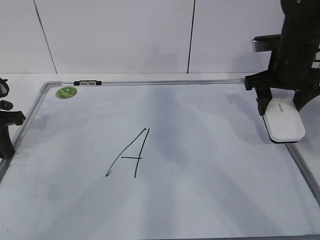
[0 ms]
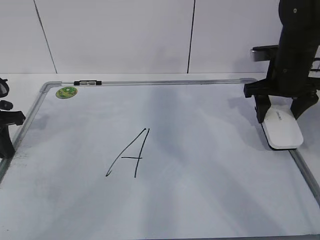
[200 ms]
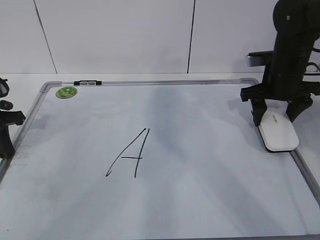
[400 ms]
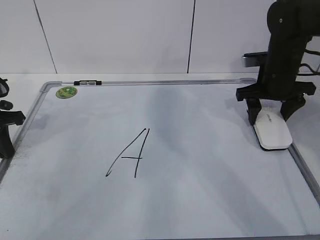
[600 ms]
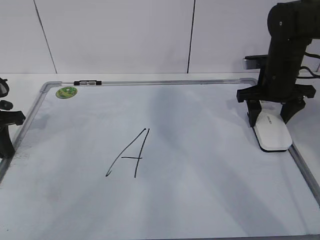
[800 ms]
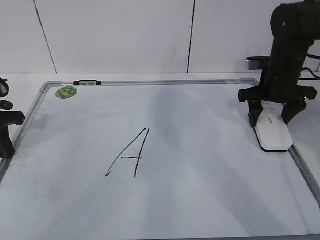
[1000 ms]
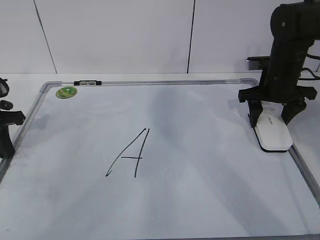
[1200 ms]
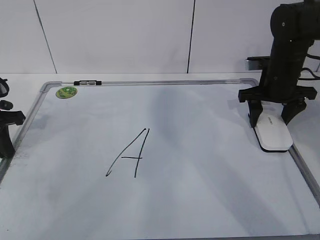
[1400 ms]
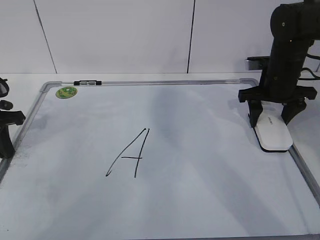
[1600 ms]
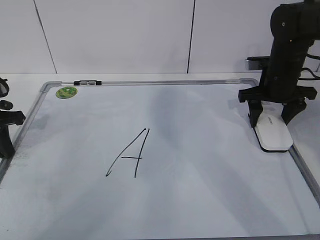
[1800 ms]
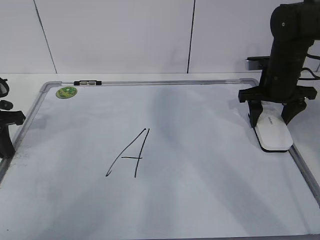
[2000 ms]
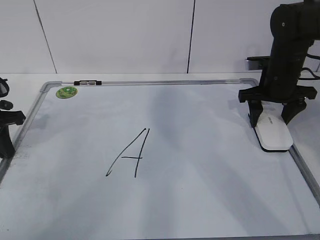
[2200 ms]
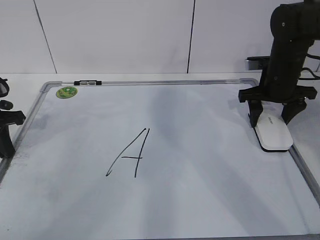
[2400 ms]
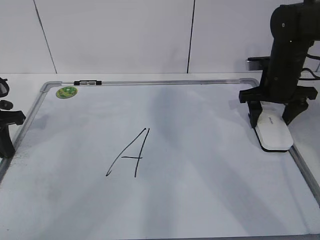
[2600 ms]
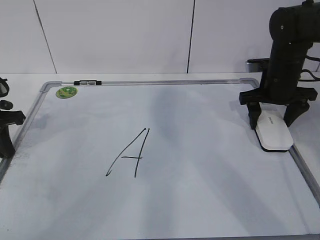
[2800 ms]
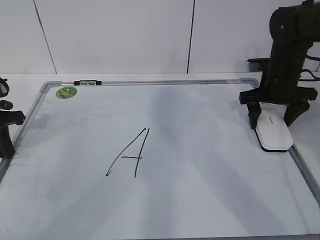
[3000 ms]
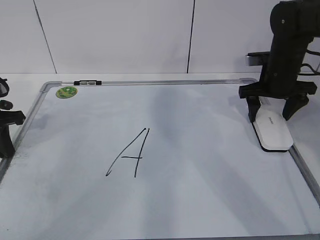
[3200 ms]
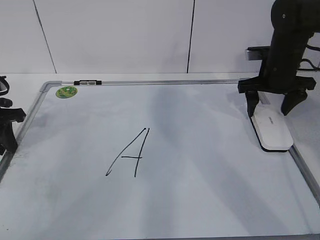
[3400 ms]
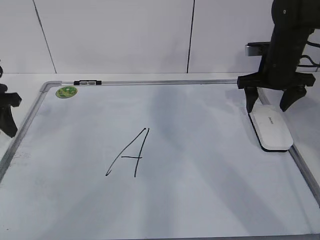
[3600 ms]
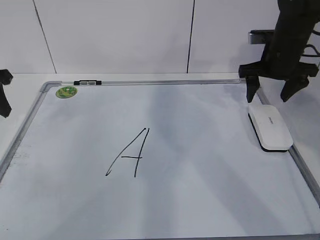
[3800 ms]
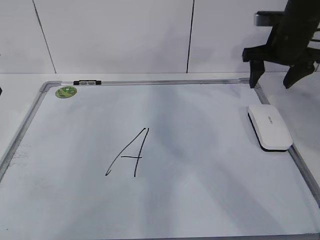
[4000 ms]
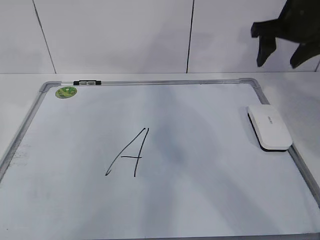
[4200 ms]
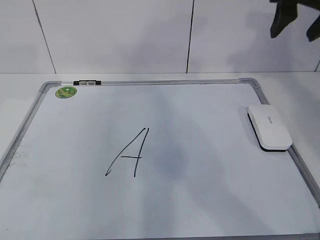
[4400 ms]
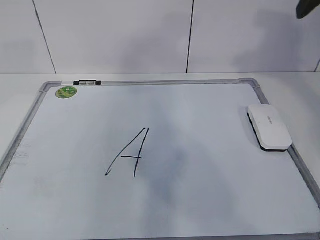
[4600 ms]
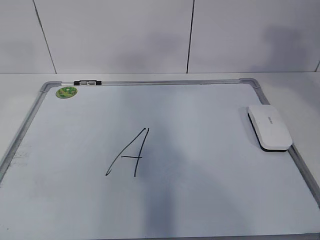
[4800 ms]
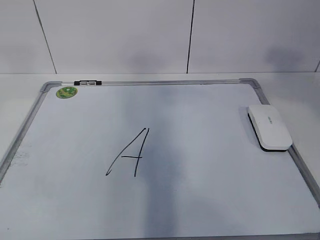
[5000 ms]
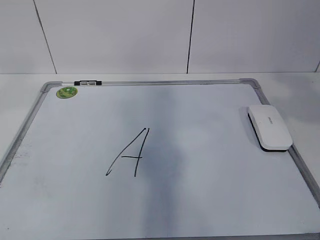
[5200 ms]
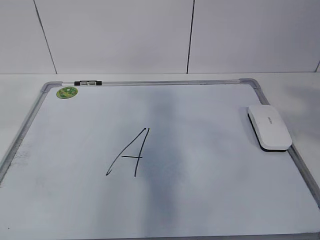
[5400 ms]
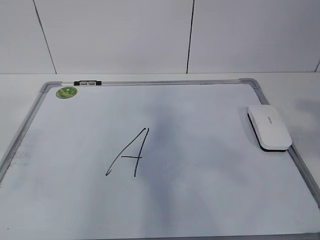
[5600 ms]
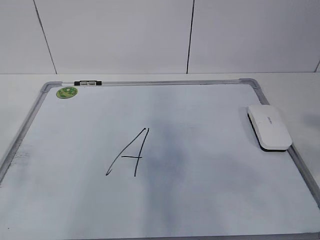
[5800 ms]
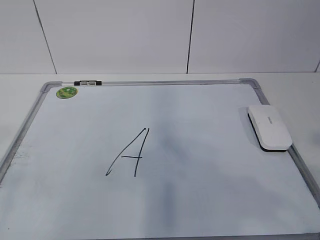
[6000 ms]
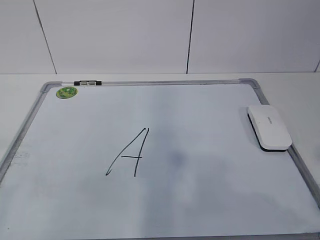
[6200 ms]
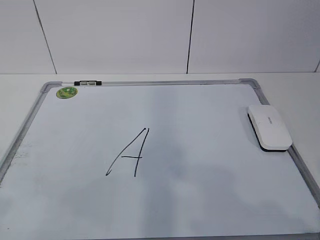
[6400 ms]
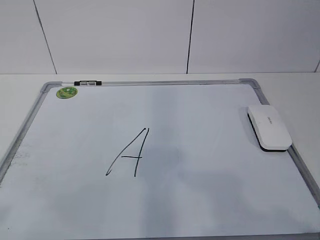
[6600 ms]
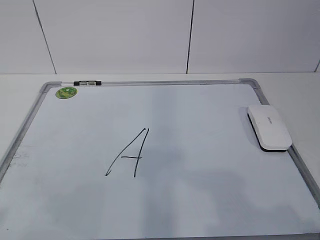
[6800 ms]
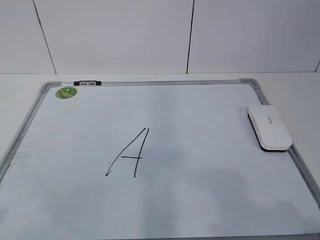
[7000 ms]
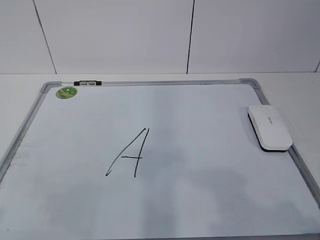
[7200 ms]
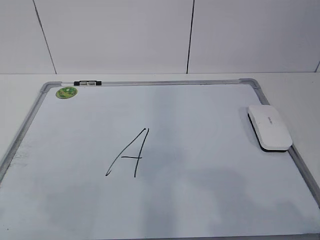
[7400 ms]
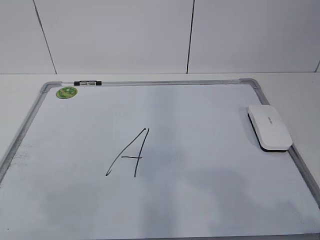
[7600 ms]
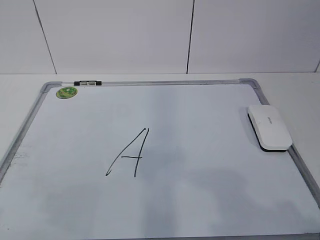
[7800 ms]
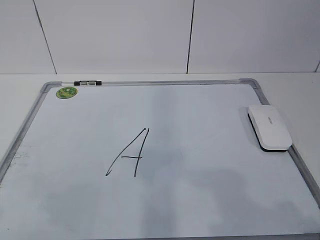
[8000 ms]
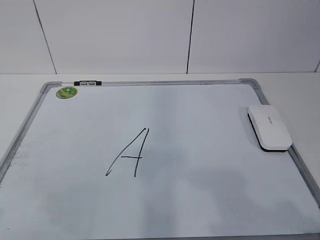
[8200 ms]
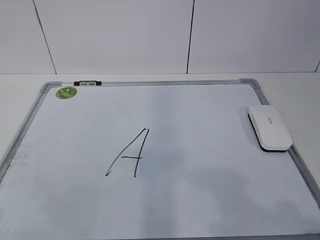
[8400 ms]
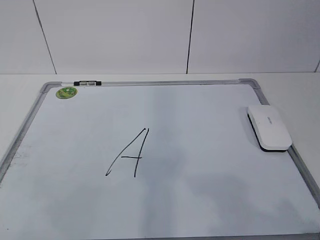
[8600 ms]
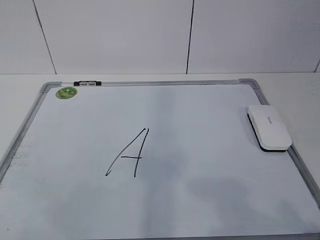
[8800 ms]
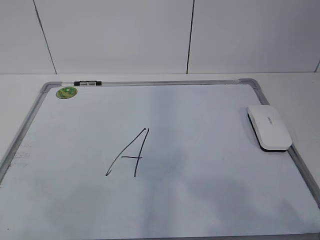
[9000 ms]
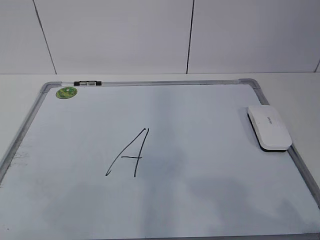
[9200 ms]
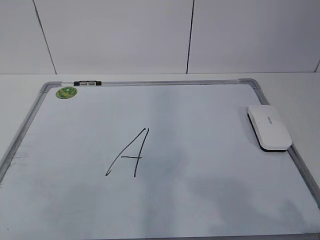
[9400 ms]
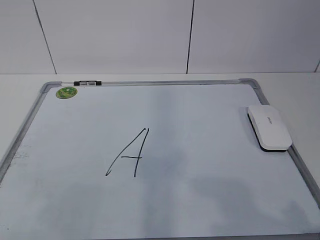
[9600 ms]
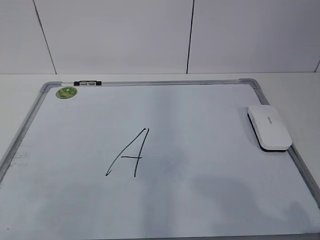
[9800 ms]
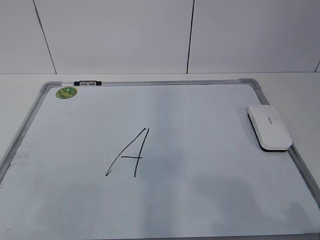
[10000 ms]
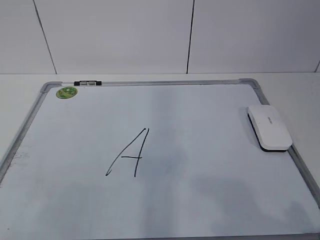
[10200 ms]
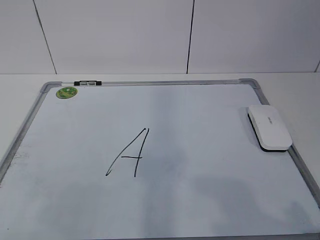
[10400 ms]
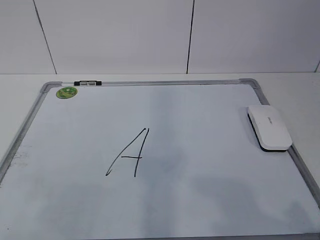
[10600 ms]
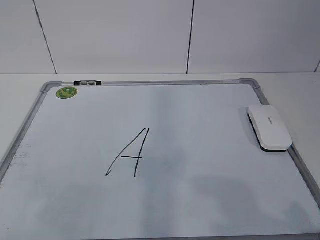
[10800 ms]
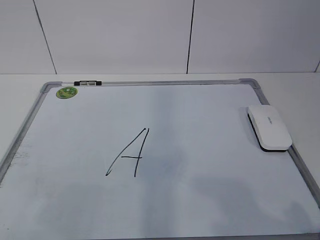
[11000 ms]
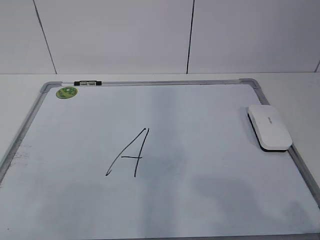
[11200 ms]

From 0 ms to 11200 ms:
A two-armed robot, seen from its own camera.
Task of the whole recording: pick up the eraser on the blackboard and erase the letter "a".
From 0 ms to 1600 ms: The right gripper changes place by some 5 cm.
From 1600 ms to 3200 ms: The right gripper opens.
From 3200 ms to 4800 ms: The grippers both shift upward and backward by about 30 cm. The right gripper closes up. Meanwhile the left gripper opens up.
From 4800 ms to 6400 ms: The grippers both shift backward and downward by approximately 25 cm.
From 9600 ms to 11200 ms: Both grippers stay about where they are.

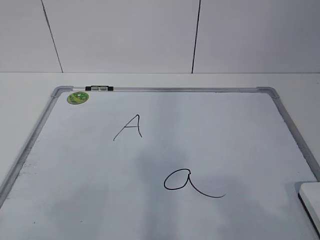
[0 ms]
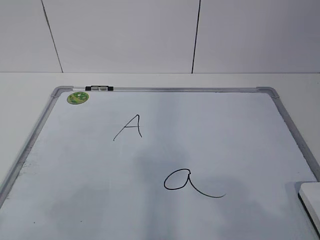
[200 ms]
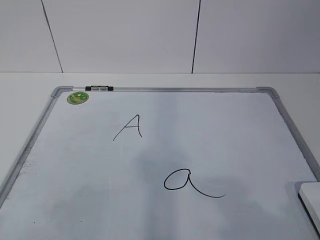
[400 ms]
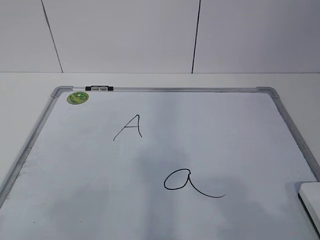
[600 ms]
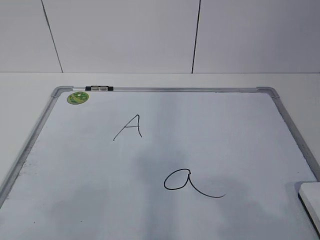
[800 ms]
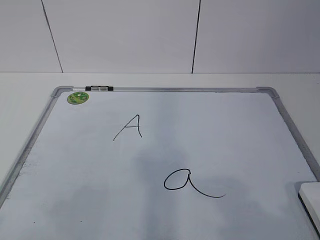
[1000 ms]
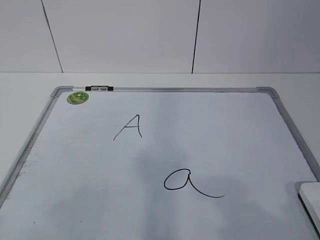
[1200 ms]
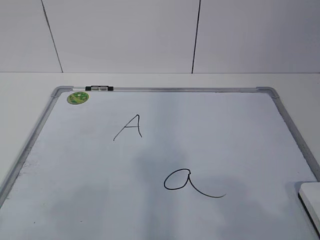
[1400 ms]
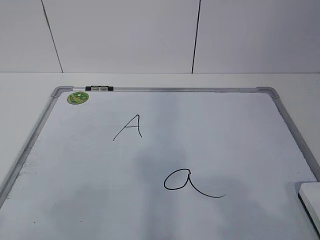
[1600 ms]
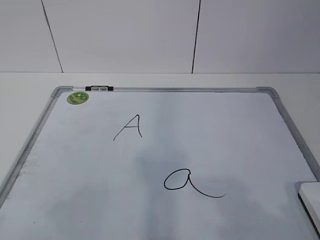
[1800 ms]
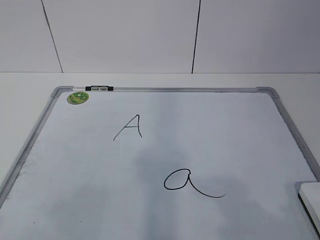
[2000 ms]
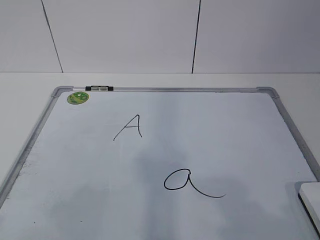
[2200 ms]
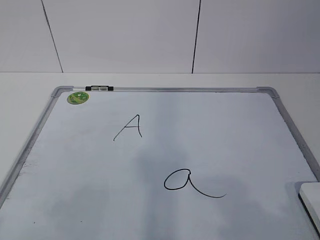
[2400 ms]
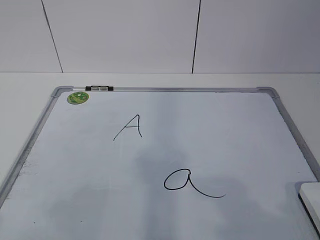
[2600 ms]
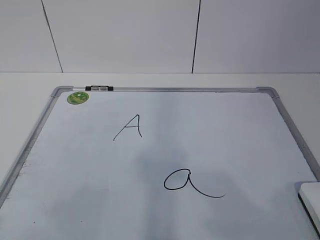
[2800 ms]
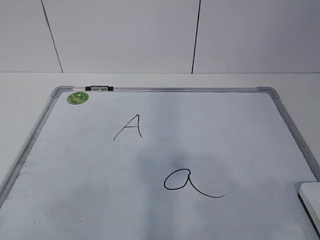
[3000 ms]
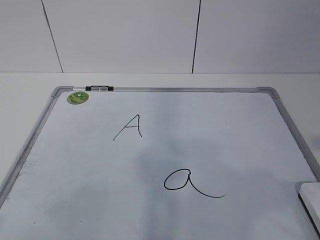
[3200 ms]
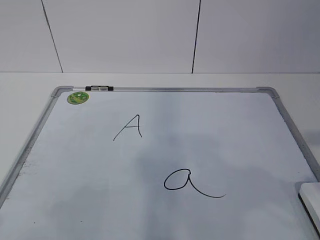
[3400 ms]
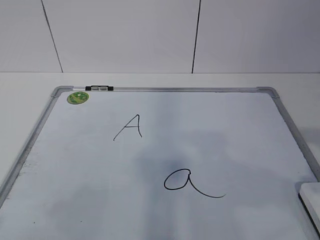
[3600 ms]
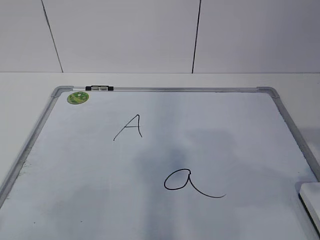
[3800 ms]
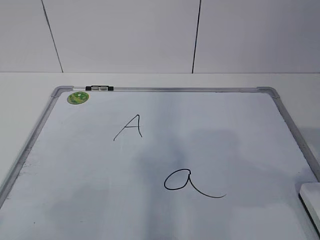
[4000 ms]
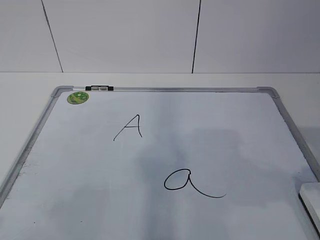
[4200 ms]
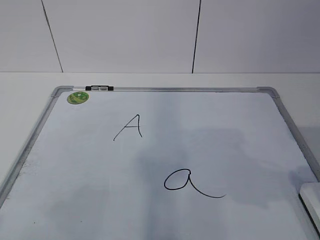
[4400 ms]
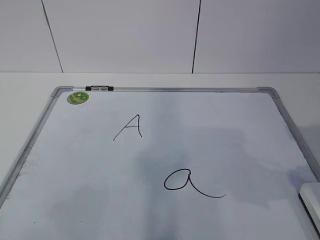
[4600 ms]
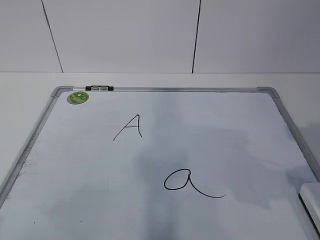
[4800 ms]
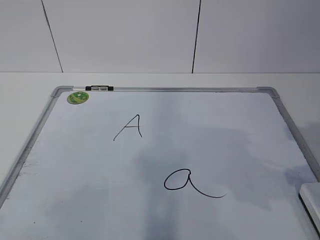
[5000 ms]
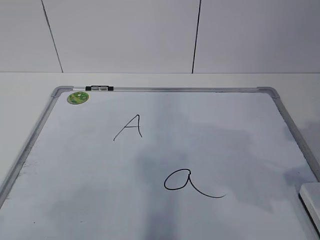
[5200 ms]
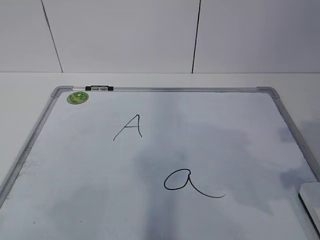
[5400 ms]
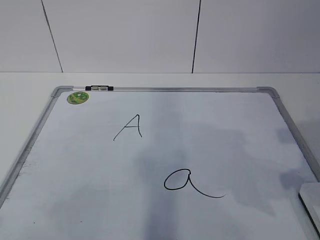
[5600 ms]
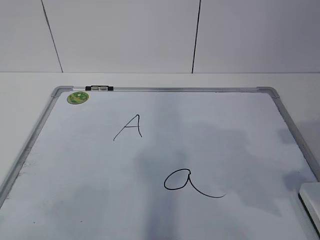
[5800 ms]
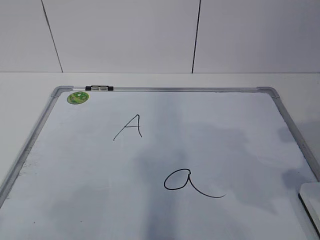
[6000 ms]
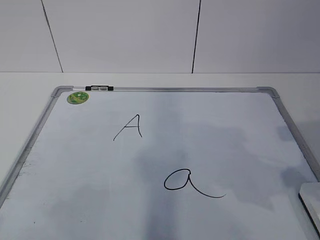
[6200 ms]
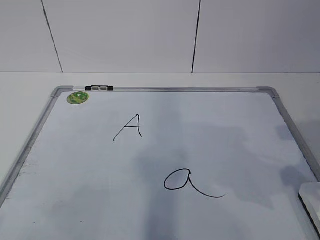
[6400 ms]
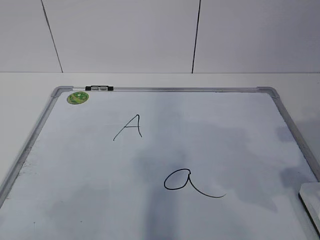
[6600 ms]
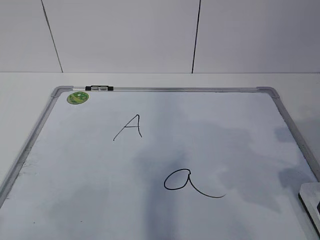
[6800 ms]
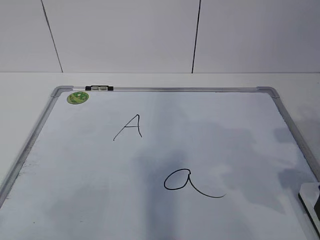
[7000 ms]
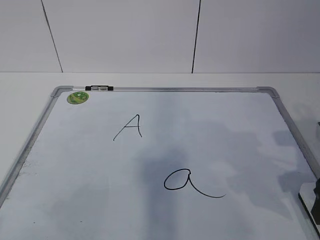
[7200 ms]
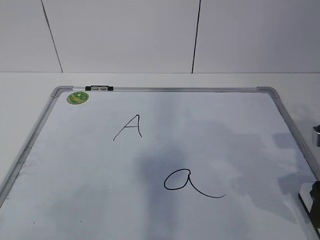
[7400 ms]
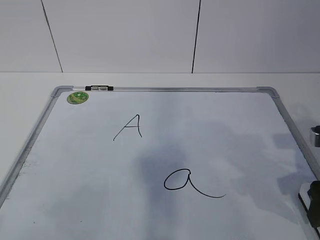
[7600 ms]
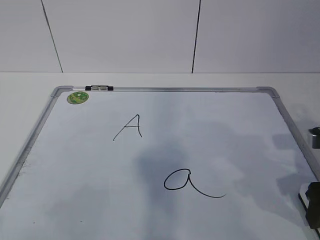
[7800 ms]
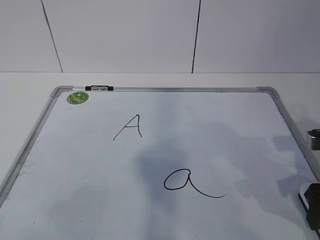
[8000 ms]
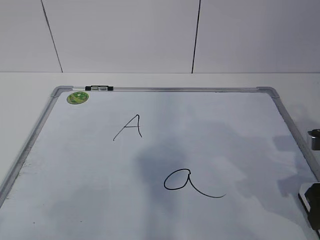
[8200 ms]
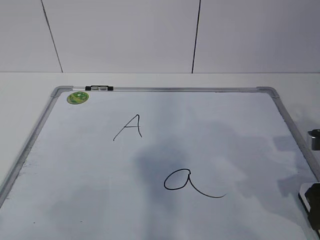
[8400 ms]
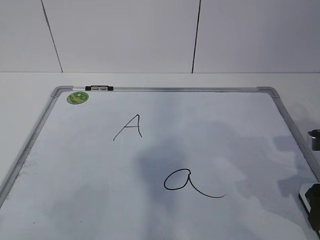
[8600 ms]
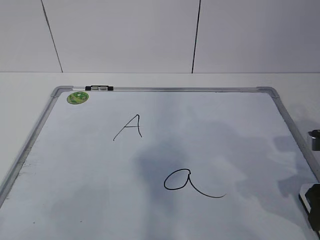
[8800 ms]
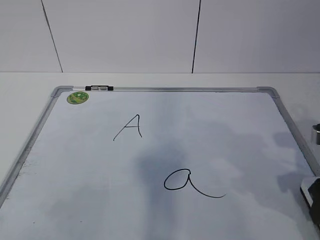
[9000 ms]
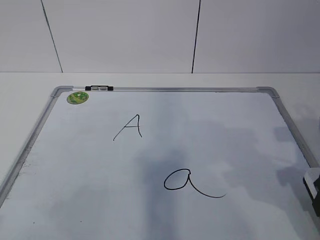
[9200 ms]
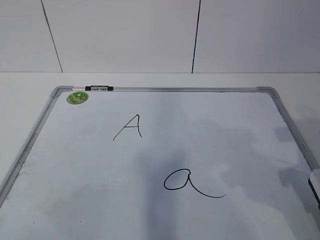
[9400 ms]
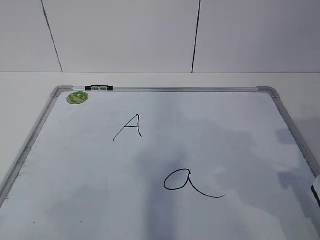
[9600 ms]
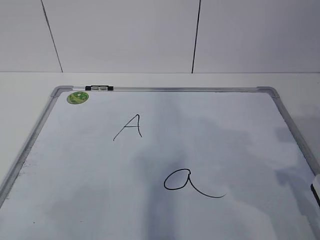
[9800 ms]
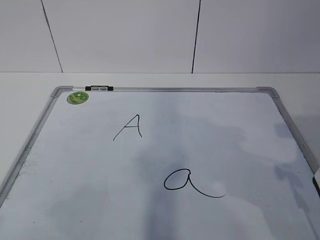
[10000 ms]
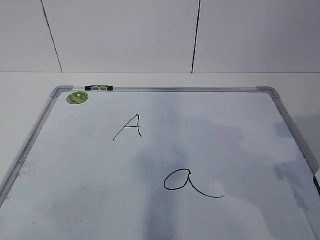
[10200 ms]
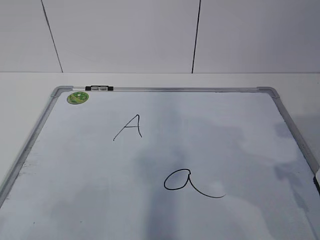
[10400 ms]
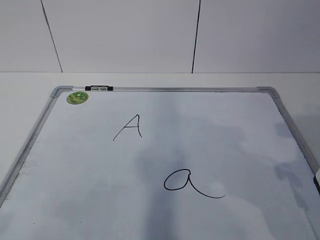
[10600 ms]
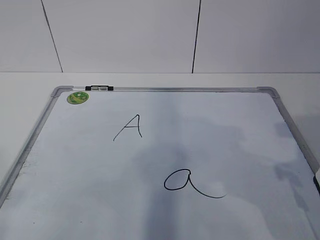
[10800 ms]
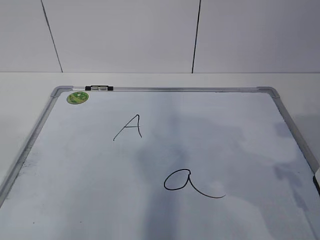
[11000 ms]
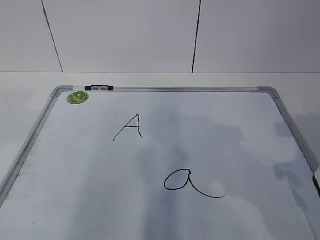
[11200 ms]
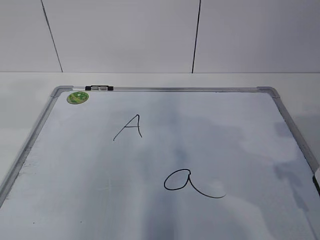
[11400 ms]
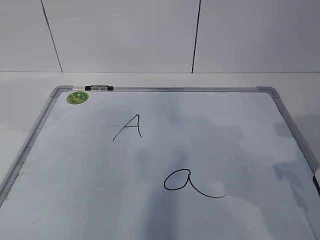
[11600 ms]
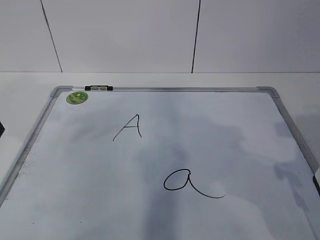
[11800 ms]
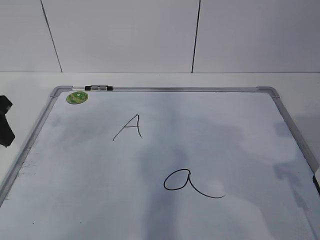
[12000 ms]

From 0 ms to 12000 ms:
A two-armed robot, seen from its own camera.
Task of the whole recording: pick up the eraser on the blackboard and erase the letter "a".
From 6000 ms to 7600 ms: The right gripper is displaced downward by some 5 cm.
From 9000 ms to 10400 ms: The right gripper is displaced upward by about 5 cm.
From 10400 ms to 12000 ms: The left gripper heads forward, covering some 30 cm.
